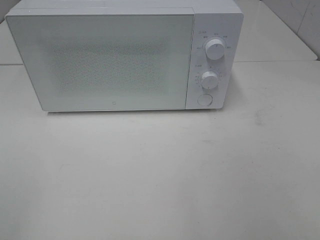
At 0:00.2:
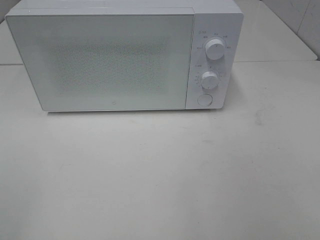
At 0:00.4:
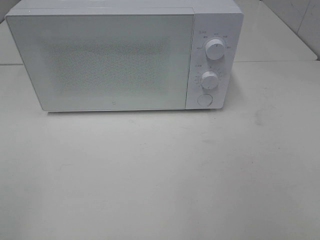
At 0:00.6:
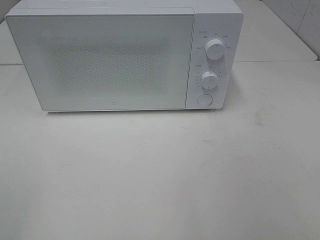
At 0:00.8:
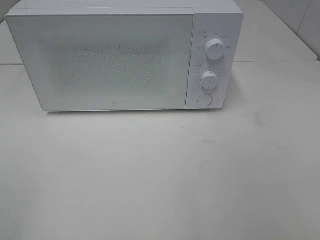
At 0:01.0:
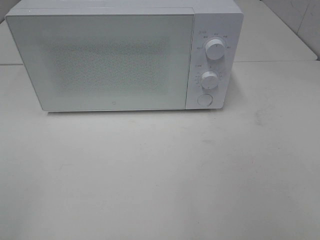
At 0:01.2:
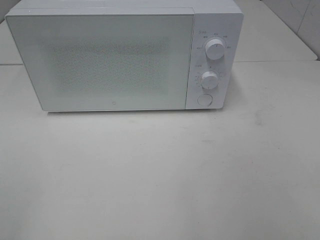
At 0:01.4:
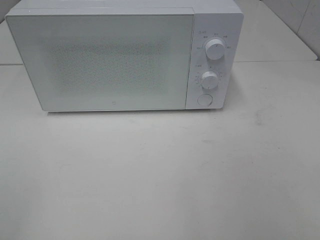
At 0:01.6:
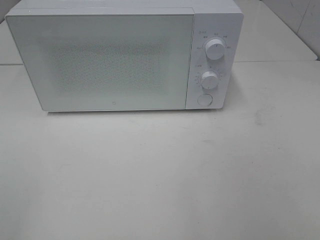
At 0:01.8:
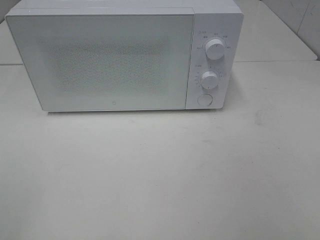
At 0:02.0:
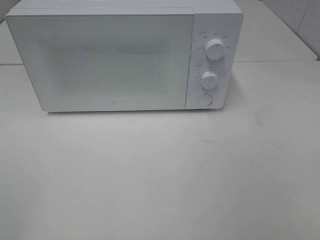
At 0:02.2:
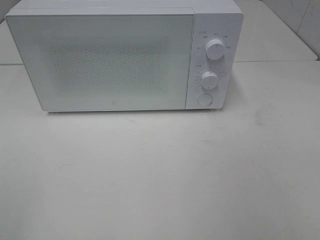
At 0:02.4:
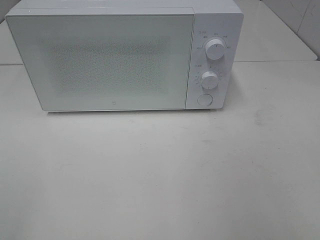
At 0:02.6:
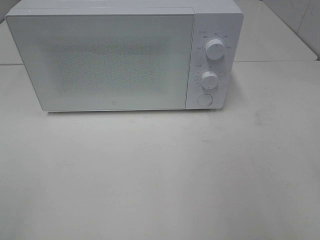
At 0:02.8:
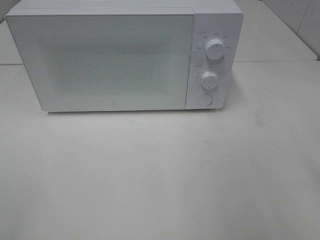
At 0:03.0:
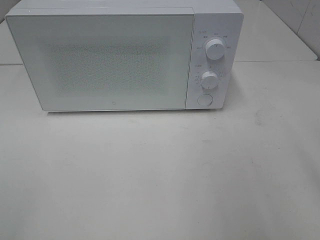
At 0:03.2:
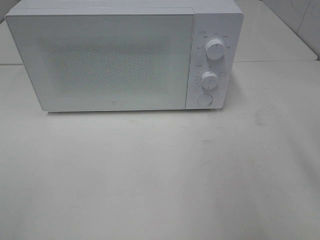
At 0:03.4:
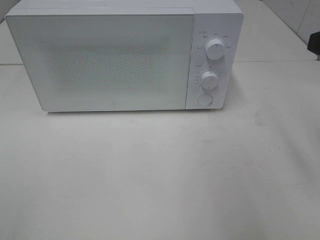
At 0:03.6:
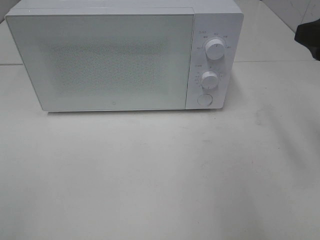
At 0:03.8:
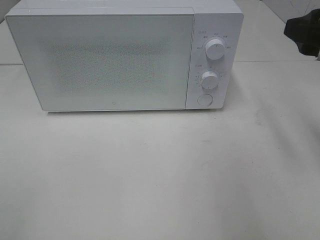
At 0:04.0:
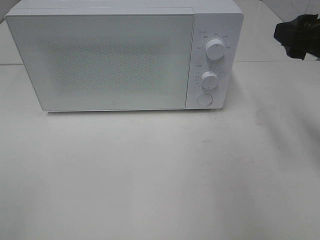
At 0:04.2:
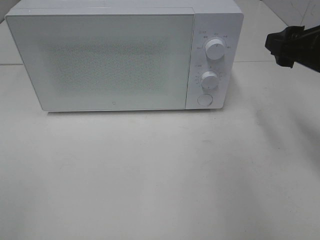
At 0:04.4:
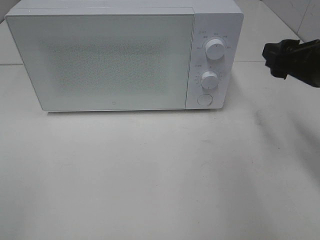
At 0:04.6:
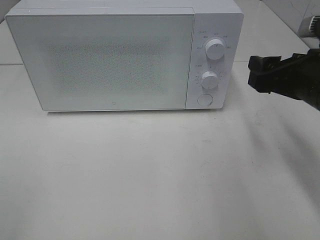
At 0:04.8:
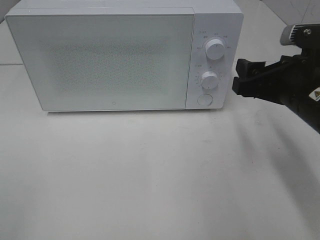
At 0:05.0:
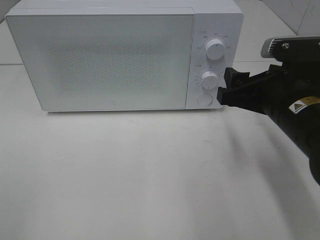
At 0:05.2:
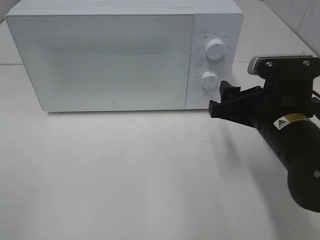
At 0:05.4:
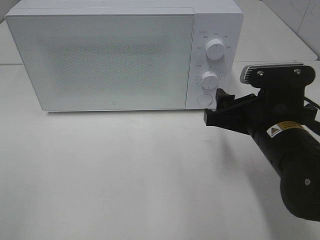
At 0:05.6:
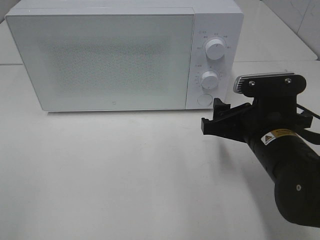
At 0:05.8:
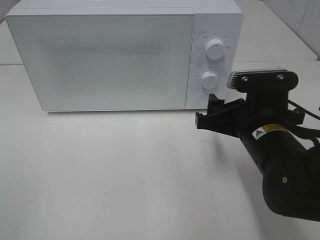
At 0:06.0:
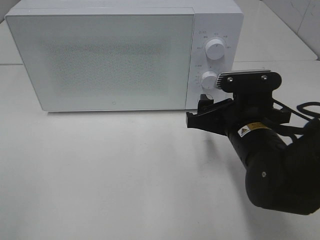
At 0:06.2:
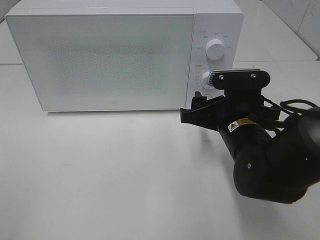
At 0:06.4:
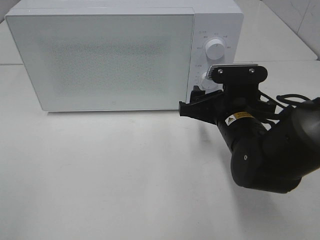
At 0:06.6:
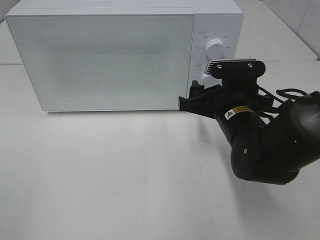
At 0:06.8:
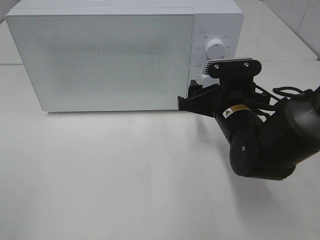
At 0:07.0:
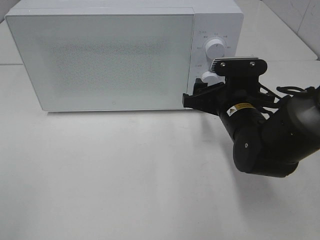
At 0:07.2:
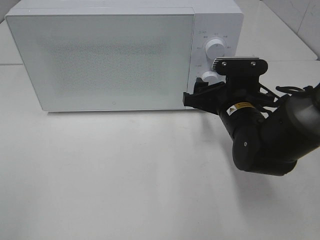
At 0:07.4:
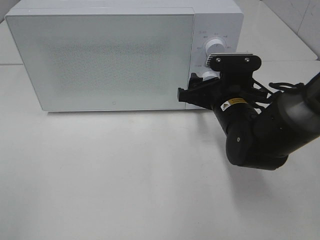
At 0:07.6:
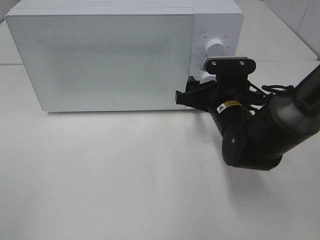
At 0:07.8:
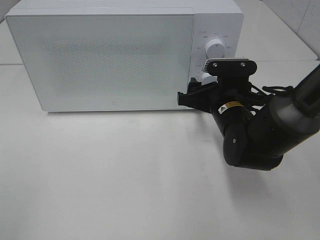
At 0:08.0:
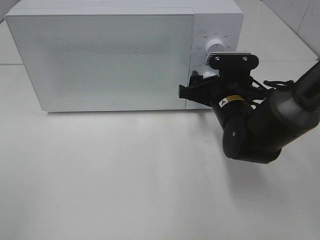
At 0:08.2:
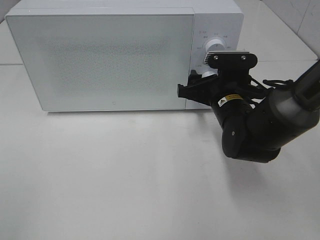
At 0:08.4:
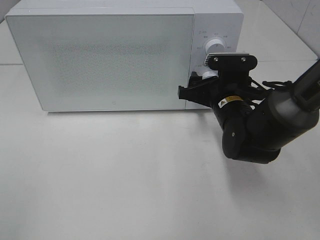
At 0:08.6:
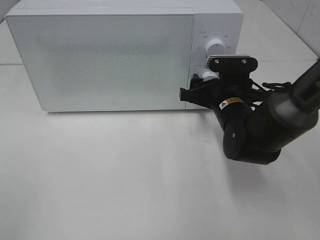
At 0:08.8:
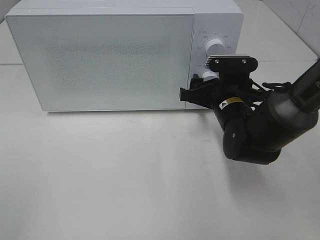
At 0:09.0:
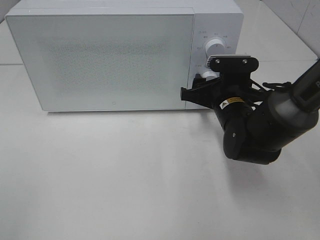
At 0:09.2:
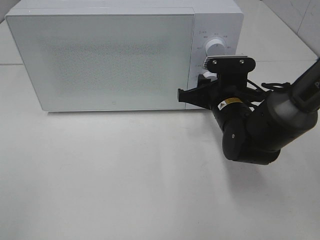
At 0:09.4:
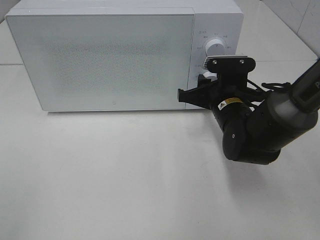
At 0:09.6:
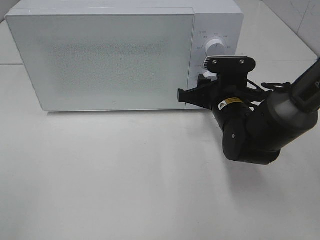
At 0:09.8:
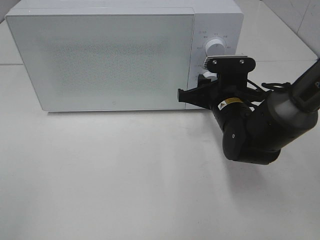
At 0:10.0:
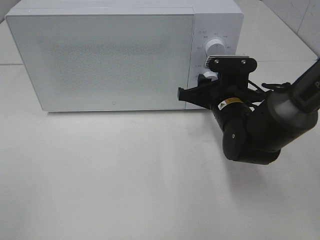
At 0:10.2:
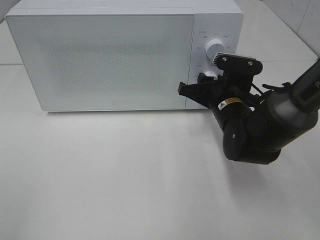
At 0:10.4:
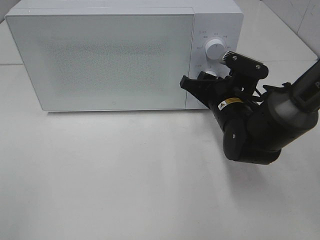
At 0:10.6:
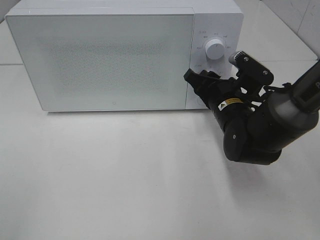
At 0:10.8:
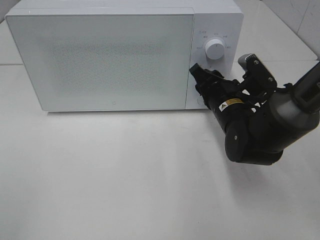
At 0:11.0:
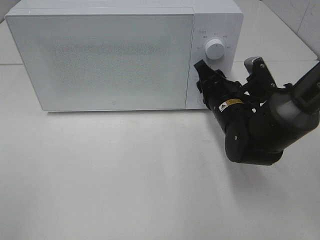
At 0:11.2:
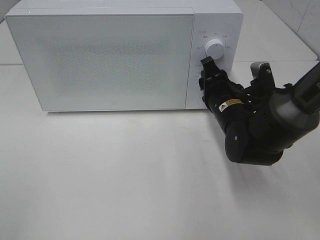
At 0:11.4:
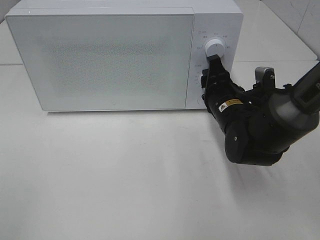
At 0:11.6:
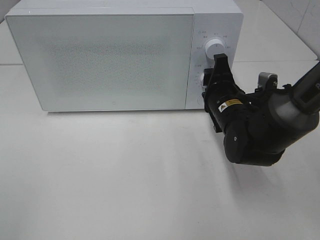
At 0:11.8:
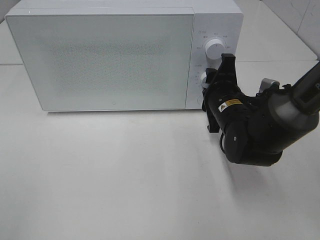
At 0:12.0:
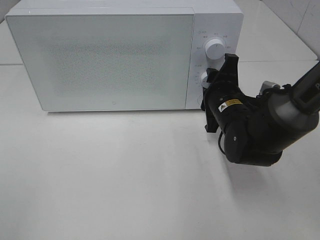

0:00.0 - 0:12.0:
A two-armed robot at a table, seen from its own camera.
Task of the whole recording: Heat the burger.
0:00.0 - 0:01.6: Both grippers stay about where they are.
0:03.0 - 0:04.4: The right gripper travels forward and downward by some 15 cm.
0:04.4 - 0:06.0: The right gripper travels to the left and downward by approximately 15 cm.
0:06.0 - 0:07.6: The right gripper heads forward, covering some 5 cm.
0:07.6 - 0:09.0: There are only small adjustments of the grippers.

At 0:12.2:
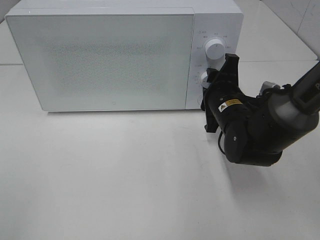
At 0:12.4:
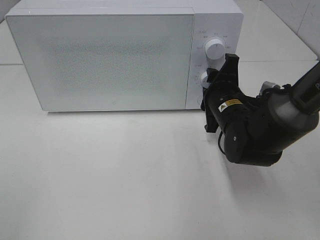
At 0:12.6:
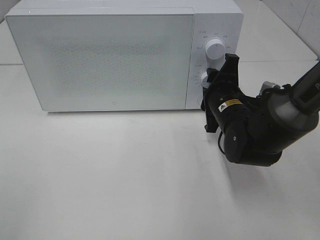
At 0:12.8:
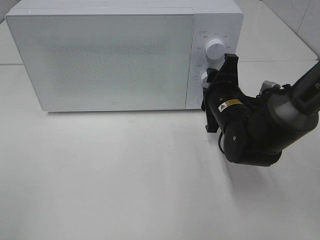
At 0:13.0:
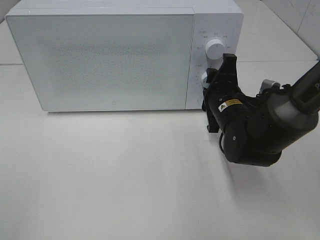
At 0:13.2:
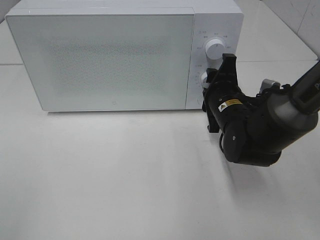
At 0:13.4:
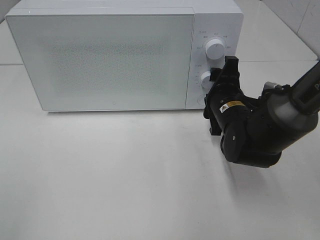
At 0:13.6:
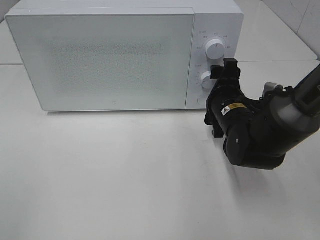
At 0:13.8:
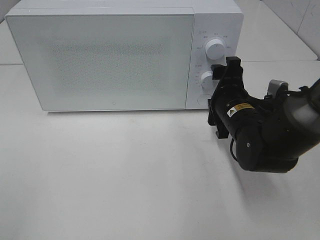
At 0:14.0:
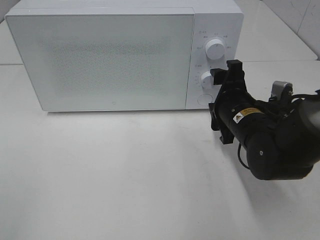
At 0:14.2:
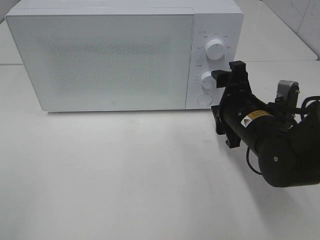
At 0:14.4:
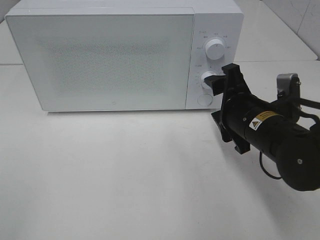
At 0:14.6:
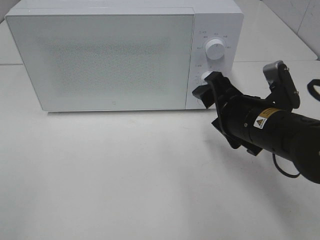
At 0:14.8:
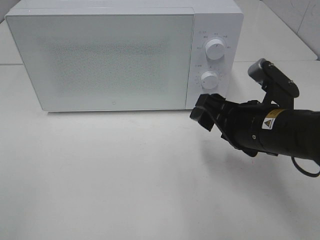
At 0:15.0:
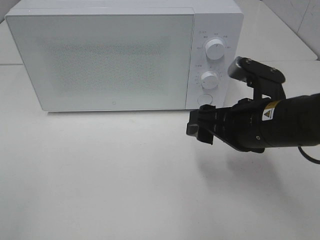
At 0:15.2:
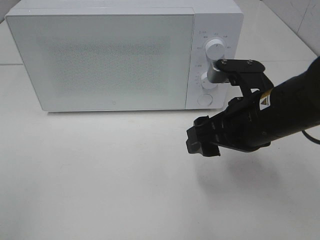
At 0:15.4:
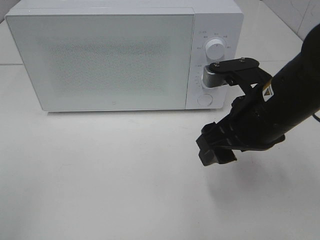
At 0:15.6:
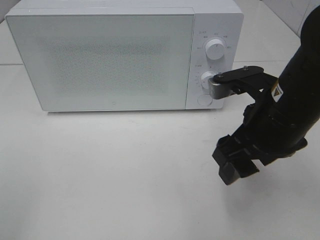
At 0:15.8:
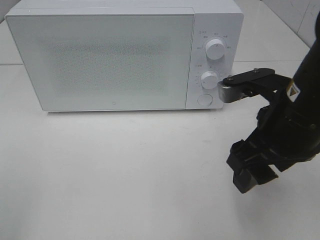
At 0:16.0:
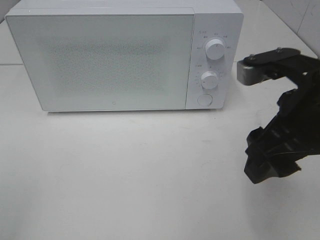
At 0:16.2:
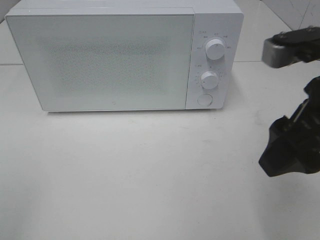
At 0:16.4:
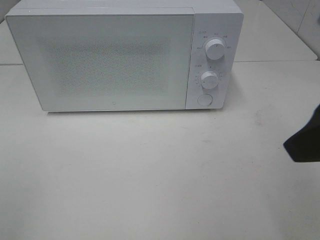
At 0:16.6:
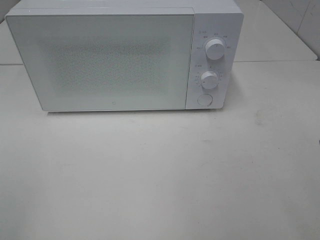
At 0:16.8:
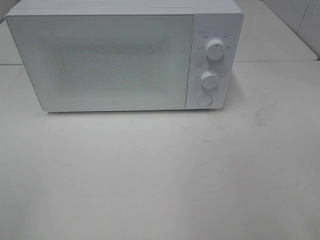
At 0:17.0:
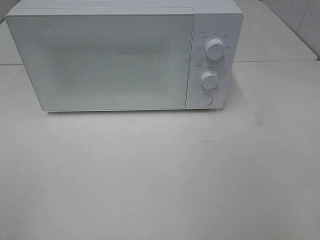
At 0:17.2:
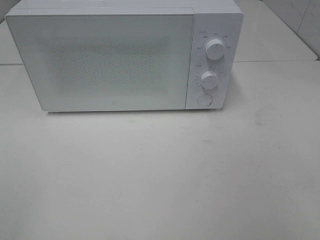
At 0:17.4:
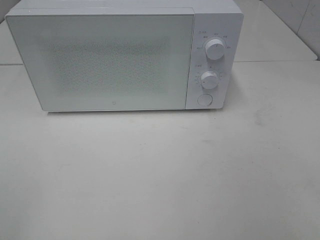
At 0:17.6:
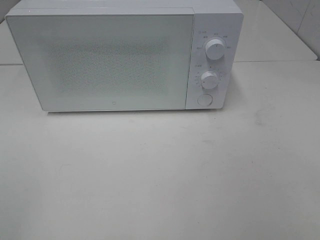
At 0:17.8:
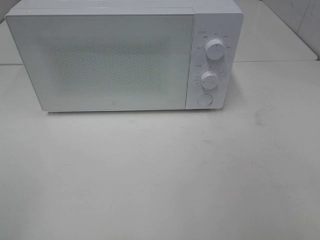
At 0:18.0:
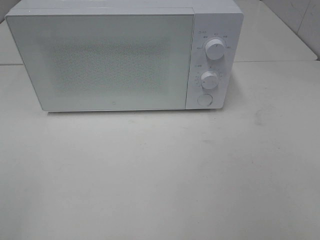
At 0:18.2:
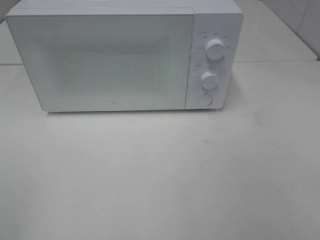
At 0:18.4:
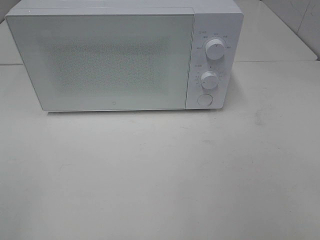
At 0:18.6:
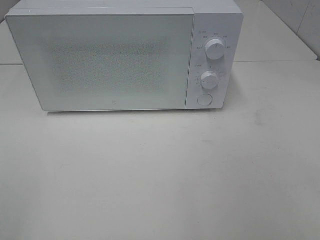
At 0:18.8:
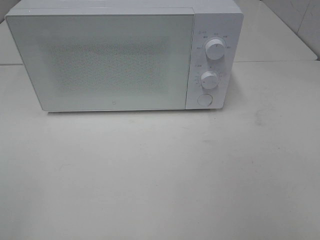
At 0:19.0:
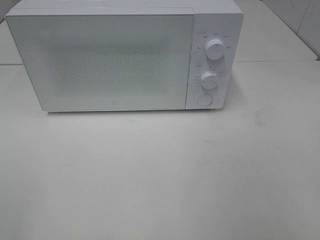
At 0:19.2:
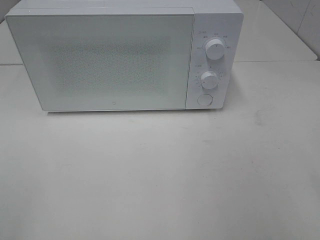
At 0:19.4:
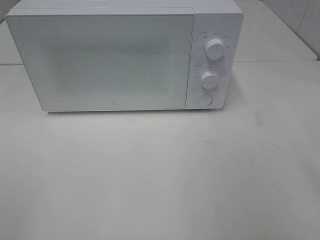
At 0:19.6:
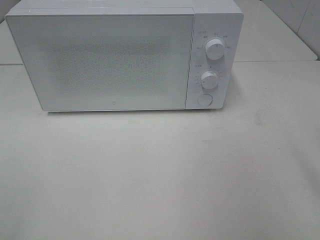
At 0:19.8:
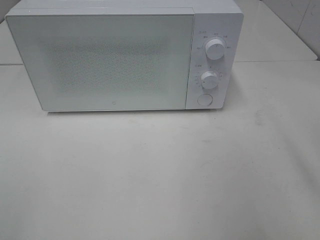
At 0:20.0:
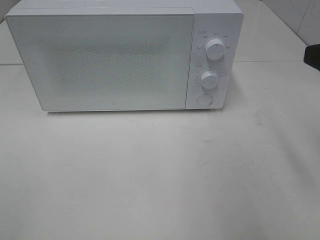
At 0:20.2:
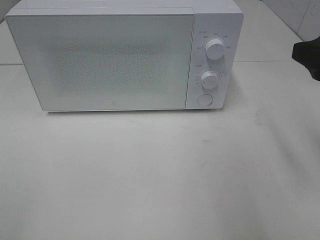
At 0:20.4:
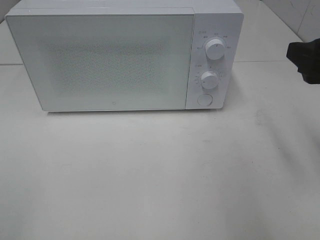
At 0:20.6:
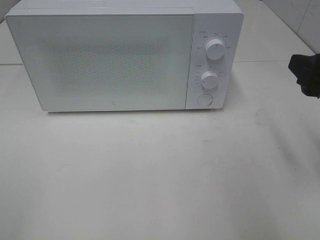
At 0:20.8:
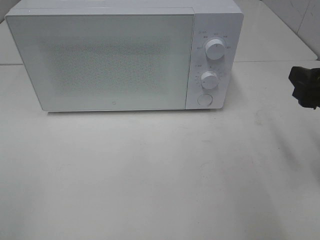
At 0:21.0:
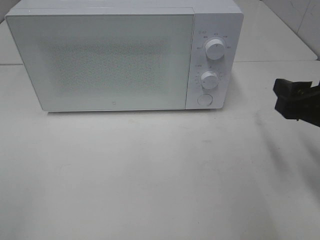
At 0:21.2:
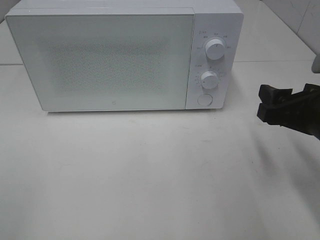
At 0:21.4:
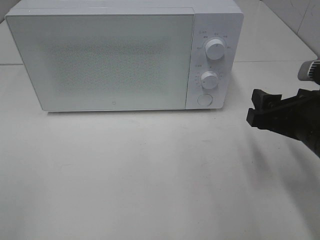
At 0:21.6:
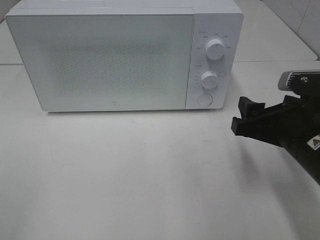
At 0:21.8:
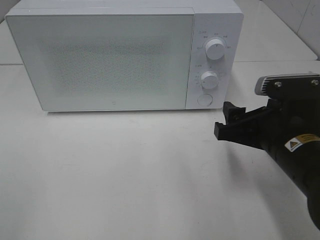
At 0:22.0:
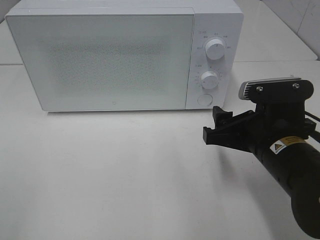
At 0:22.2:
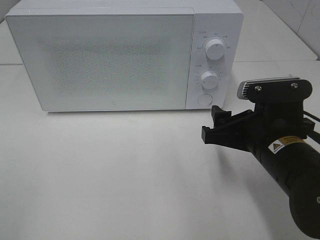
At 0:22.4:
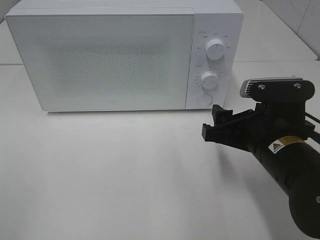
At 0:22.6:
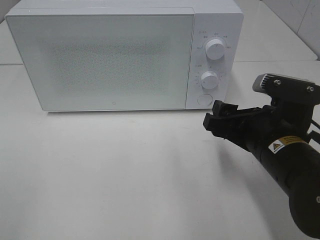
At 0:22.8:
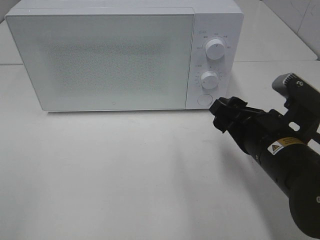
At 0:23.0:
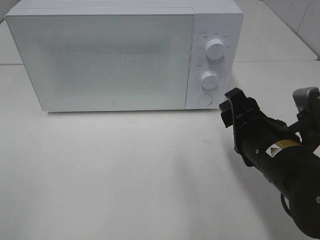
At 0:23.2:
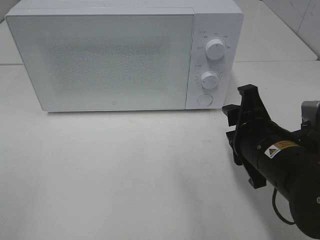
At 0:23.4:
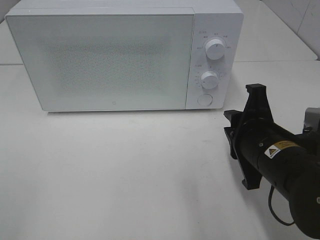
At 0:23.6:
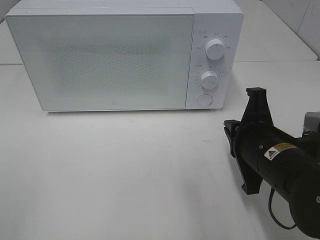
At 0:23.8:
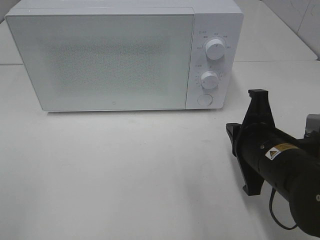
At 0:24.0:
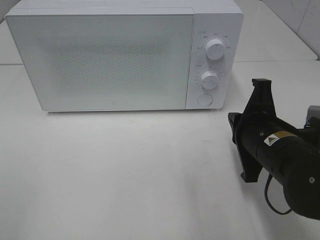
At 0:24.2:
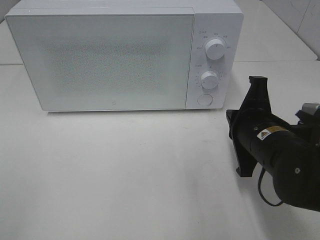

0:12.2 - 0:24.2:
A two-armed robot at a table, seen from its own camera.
Task of the whole recording: Heat the burger.
0:12.2 - 0:13.8: The right gripper opens its fingers.
0:13.8 - 0:15.2: The right gripper heads backward and upward, covering roughly 10 cm.
0:15.2 - 0:16.6: The right gripper moves upward, backward and to the right, roughly 20 cm.
0:19.8 - 0:21.2: The right gripper moves downward, roughly 10 cm.
0:21.2 - 0:22.6: The right gripper goes some 5 cm to the left.
0:22.6 - 0:24.2: The right gripper closes up.
